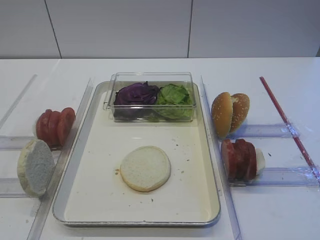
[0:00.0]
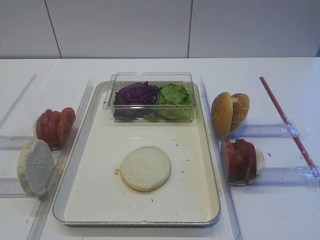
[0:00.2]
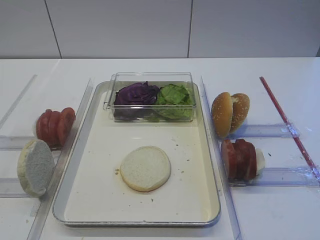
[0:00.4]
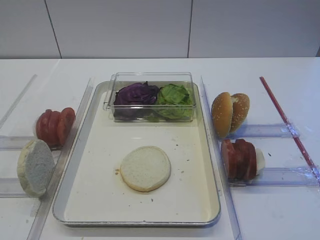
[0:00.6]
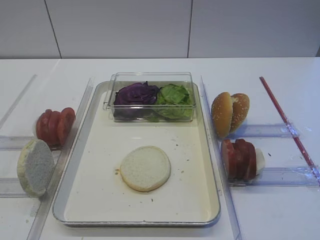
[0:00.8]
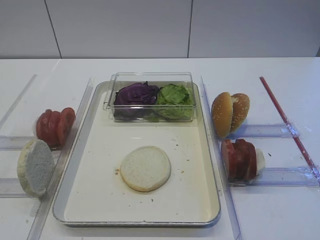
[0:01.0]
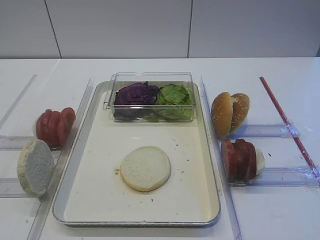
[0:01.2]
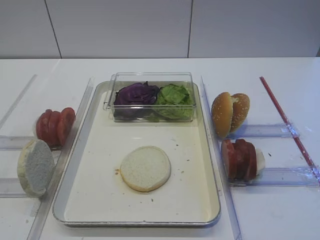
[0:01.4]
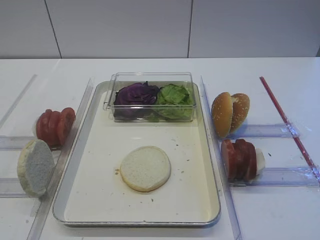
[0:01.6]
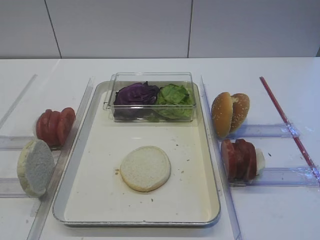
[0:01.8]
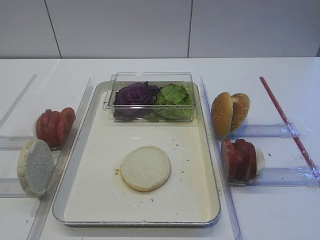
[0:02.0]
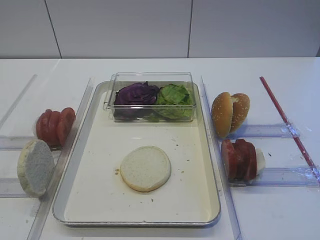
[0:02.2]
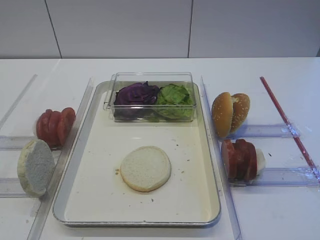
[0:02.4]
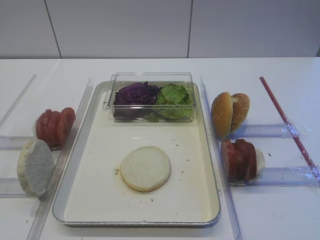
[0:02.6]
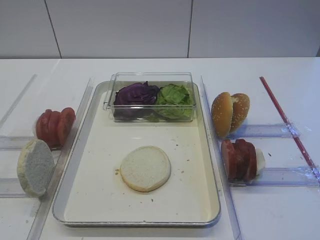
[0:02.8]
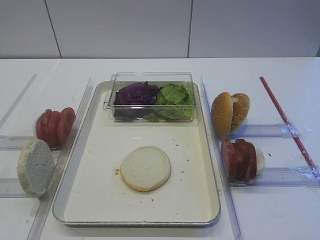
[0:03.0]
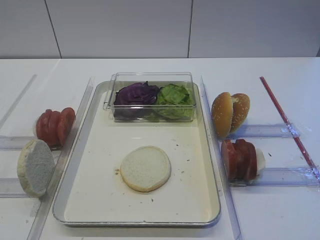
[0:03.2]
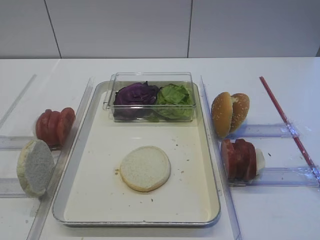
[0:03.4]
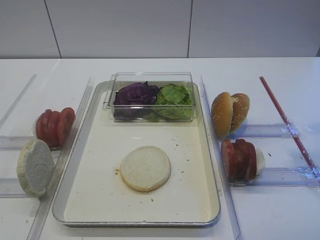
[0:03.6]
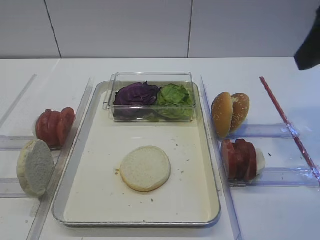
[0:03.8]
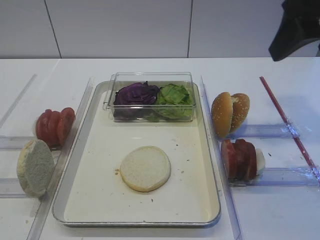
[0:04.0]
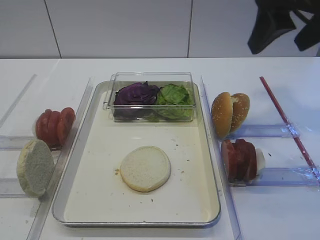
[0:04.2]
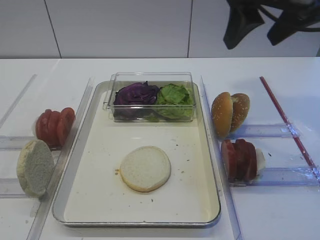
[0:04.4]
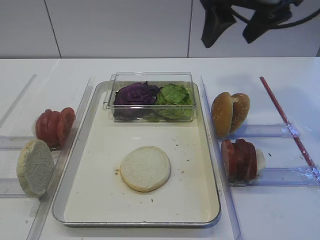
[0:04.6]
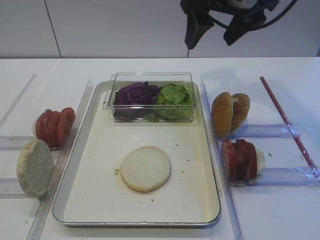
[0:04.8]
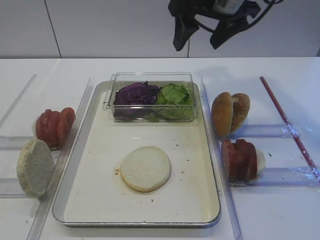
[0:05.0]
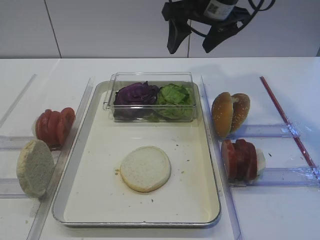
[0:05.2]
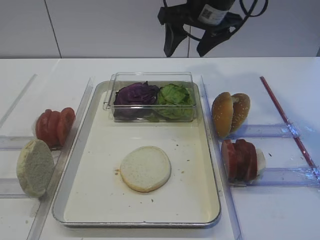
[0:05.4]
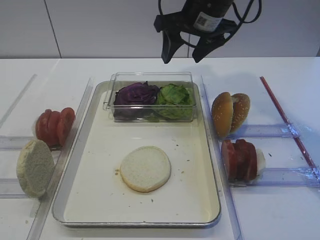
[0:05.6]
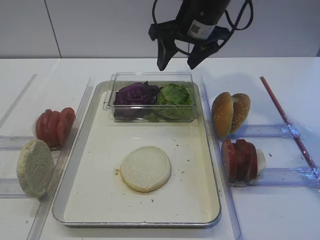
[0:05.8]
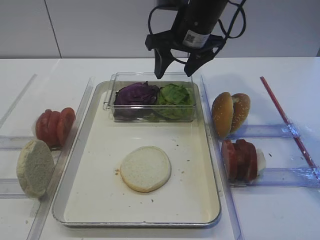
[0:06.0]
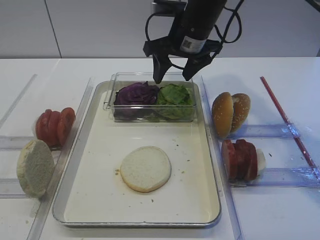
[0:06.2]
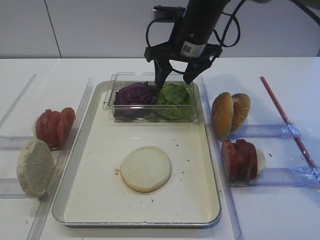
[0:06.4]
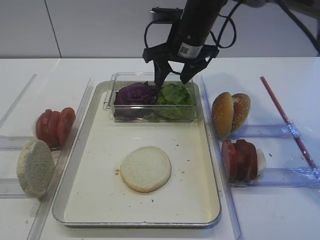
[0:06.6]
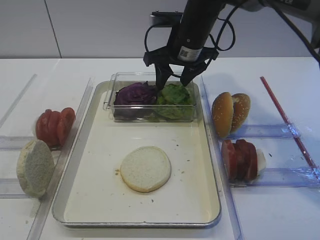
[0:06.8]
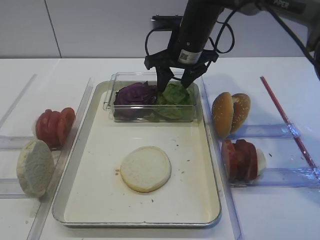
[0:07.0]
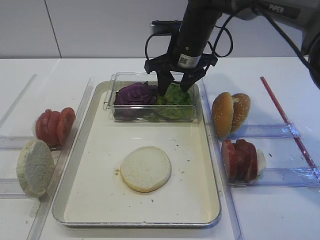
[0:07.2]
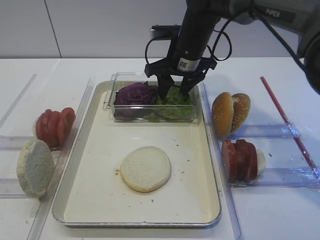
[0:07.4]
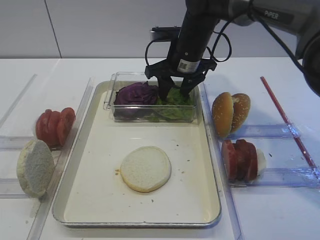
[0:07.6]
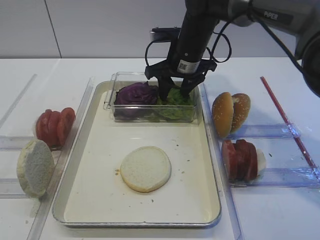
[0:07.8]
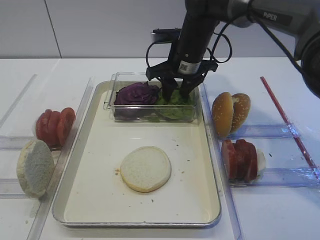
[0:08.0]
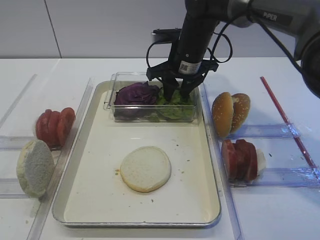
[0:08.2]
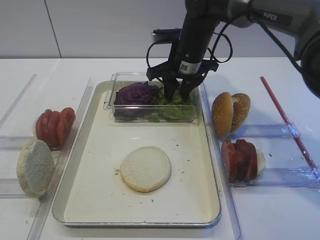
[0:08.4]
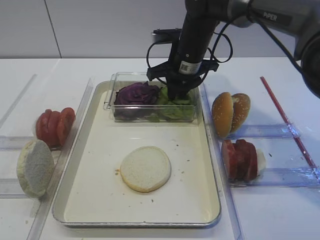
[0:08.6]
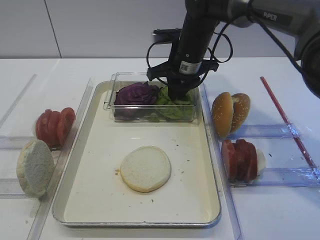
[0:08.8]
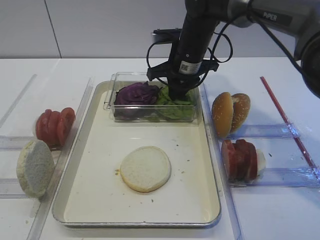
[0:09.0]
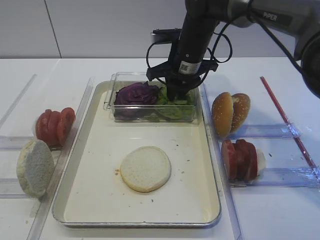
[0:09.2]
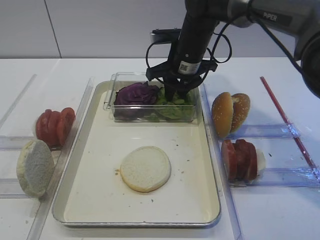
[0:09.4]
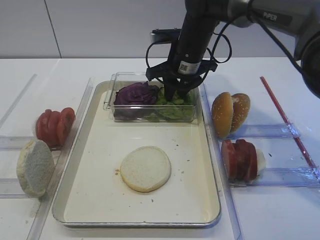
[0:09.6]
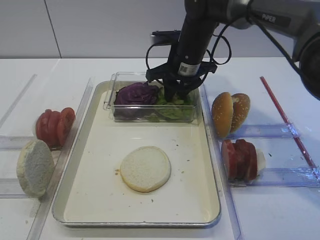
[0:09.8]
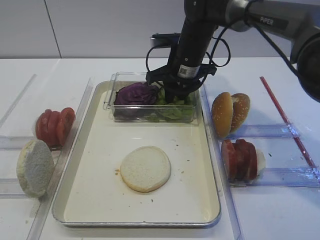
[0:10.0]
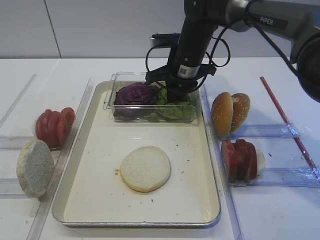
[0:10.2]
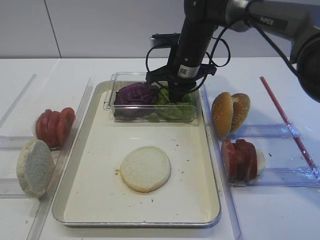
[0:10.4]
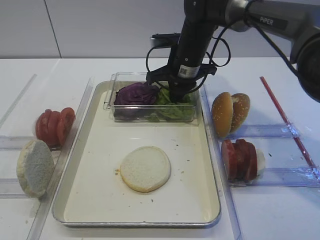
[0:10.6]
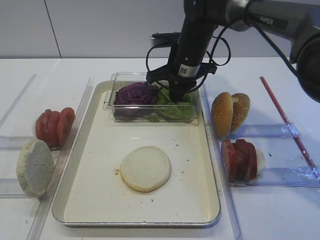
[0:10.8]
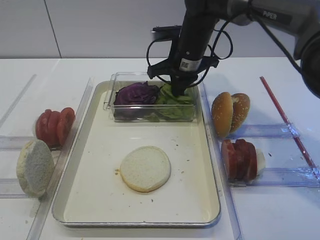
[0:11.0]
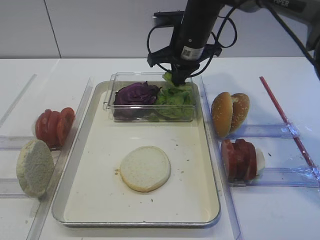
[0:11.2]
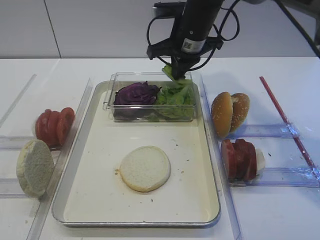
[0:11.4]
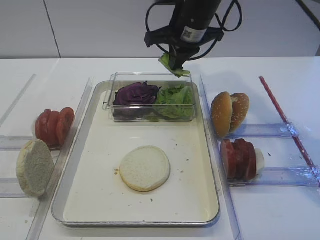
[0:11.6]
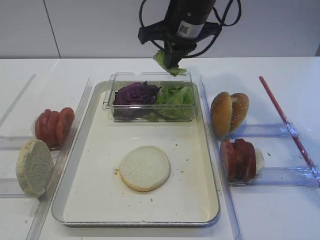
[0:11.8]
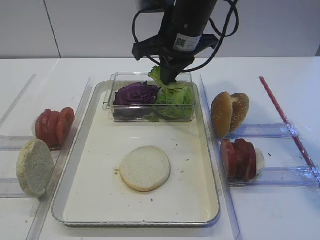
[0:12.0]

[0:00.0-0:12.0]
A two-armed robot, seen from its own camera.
Step, 0:00.0 to 0:11.4: Pick up the lettuce leaf with the right gripper.
0:03.0 to 0:04.4: The right gripper goes about 25 cm forward and to the left.
0:04.4 to 0:06.0: The right gripper goes approximately 20 cm forward, to the left and downward. Meanwhile the left gripper opens its fingers.
0:06.0 to 0:07.6: The right gripper moves downward, roughly 5 cm.
0:07.6 to 0:09.0: The right gripper closes its fingers.
0:09.0 to 0:10.4: Neither gripper changes place.
0:10.4 to 0:12.0: The right gripper moves upward and backward, some 10 cm.

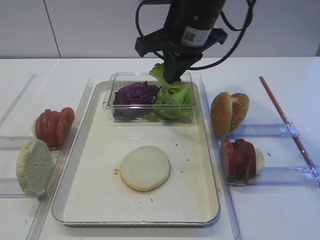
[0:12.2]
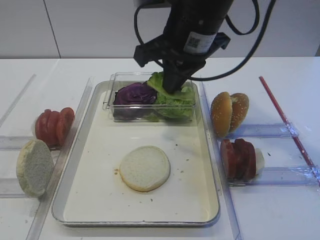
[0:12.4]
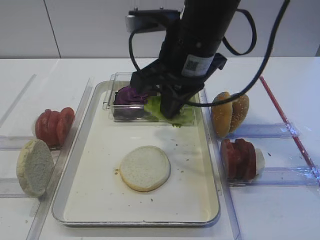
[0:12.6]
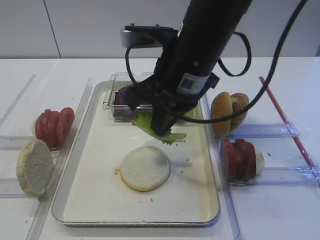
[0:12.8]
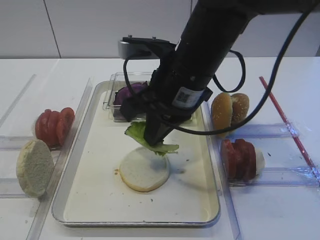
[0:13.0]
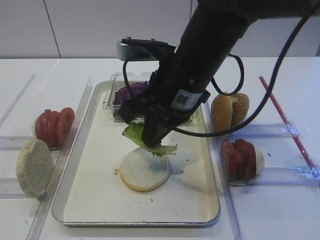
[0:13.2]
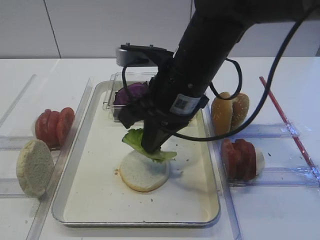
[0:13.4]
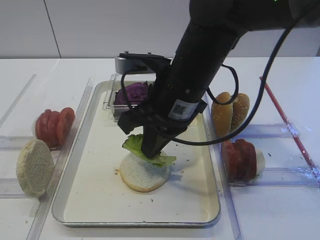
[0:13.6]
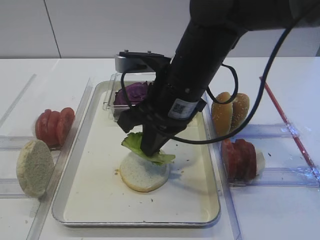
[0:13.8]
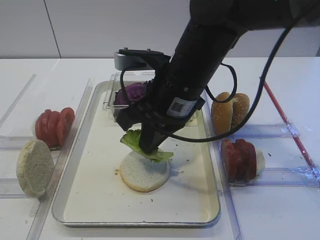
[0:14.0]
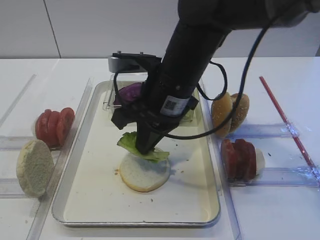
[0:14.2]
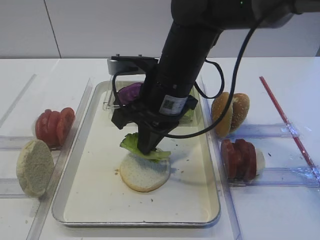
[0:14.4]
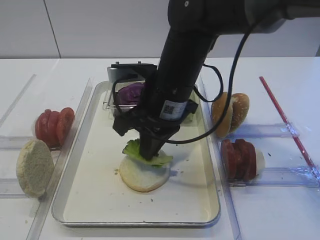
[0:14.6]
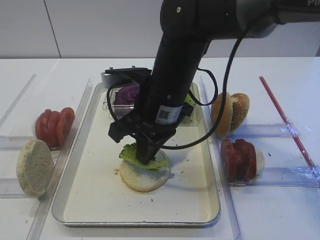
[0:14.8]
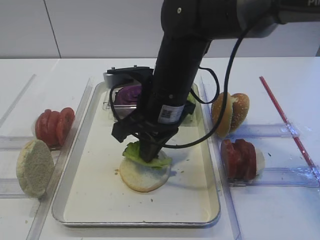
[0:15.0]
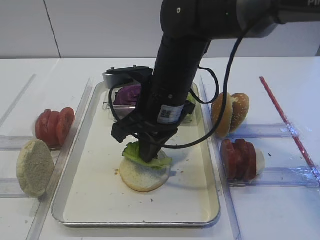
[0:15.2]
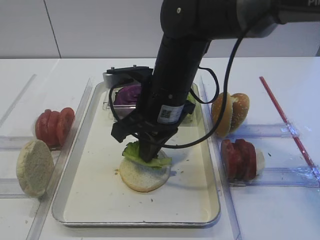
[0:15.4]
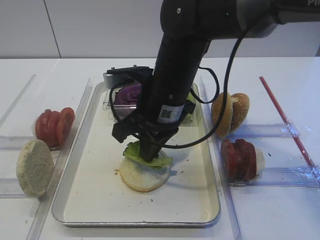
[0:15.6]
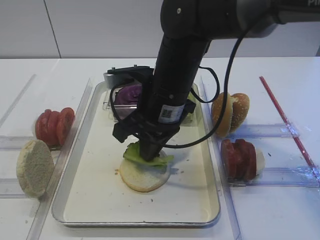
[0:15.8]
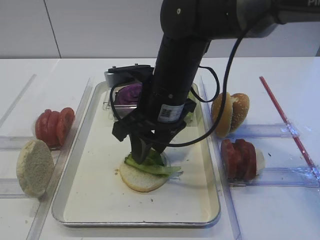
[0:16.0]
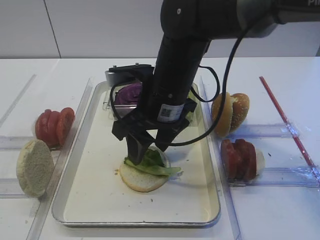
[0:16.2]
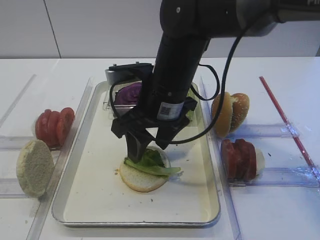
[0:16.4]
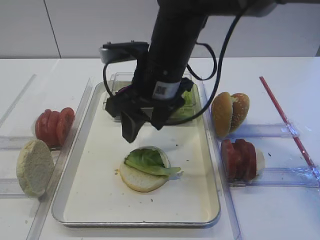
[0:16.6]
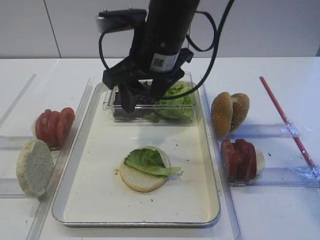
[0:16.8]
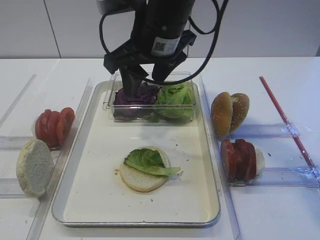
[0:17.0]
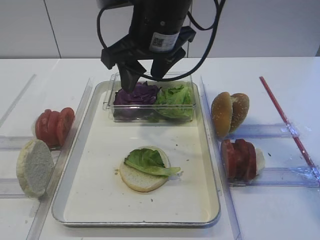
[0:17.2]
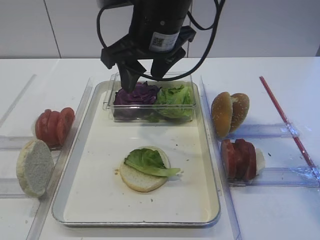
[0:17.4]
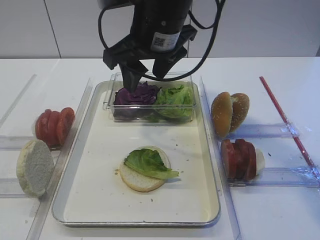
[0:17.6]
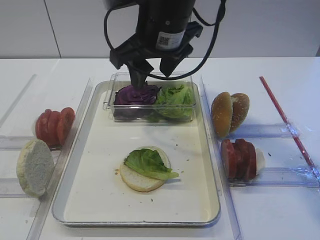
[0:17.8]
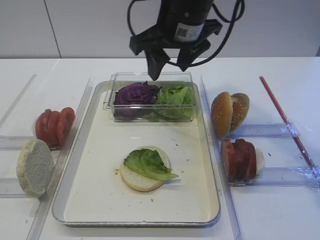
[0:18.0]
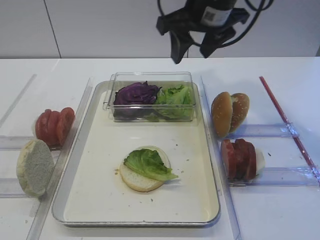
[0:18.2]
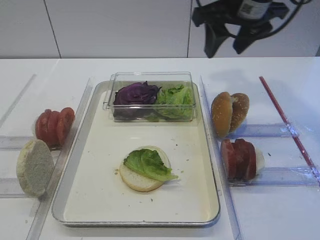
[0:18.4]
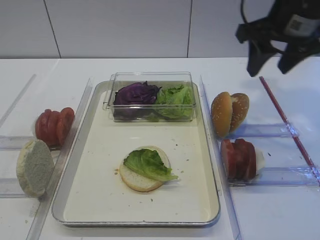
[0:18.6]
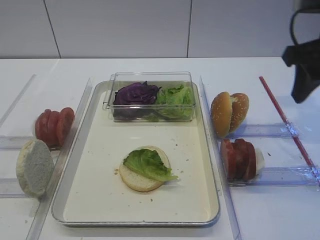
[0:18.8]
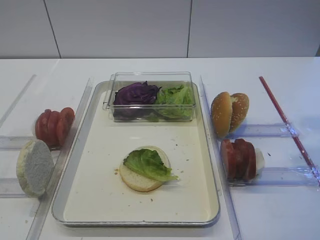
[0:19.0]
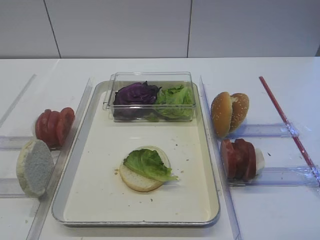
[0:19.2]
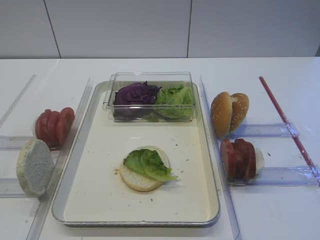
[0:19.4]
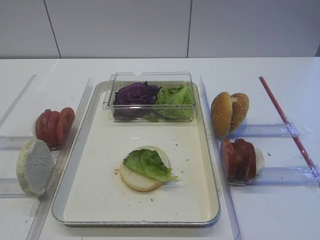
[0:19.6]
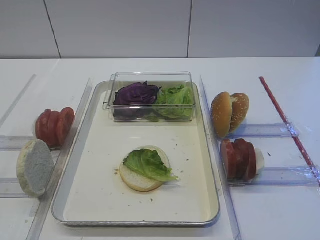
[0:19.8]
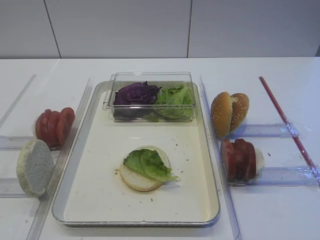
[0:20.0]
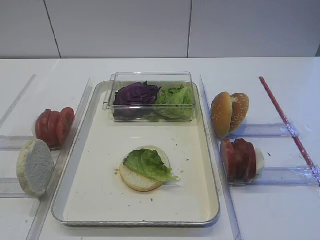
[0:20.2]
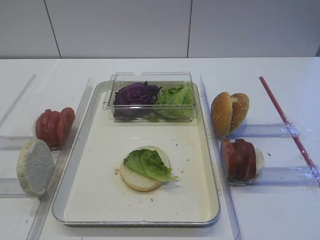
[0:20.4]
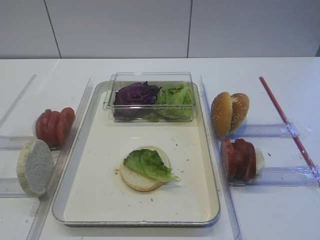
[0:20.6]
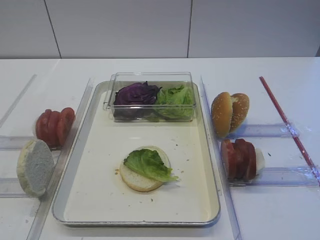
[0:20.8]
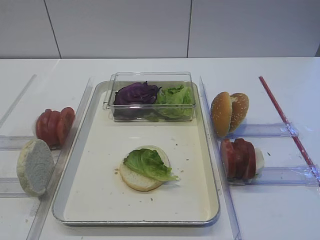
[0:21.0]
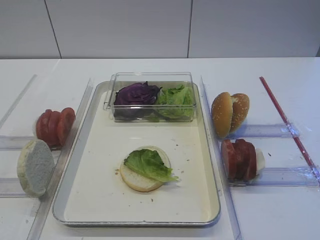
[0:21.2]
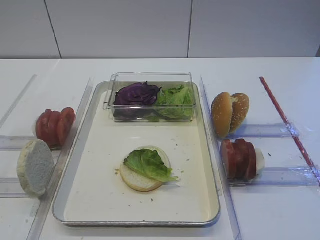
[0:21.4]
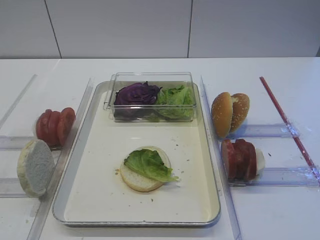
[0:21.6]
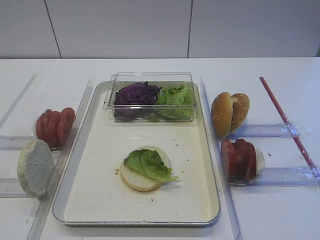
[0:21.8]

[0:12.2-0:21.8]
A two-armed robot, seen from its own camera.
Step, 0:12.2 to 0:16.6: Place the lettuce leaf on the bread slice with the right gripper.
0:12.2 to 0:13.8: The right gripper moves backward and downward, approximately 10 cm.
0:13.8 to 0:15.4: There are only small adjustments of the grippers.
0:15.4 to 0:17.0: The right gripper is displaced upward by approximately 10 cm, and opens.
0:17.0 to 0:18.6: The right gripper moves to the right, roughly 20 cm.
0:18.6 to 0:20.2: The right gripper goes approximately 30 cm backward.

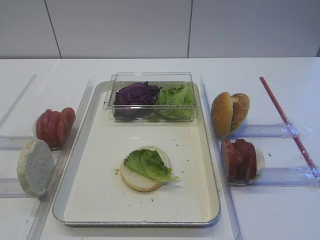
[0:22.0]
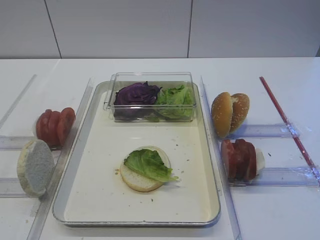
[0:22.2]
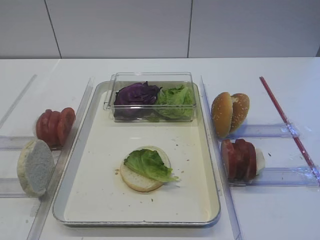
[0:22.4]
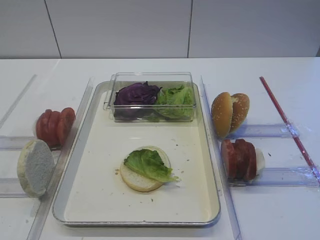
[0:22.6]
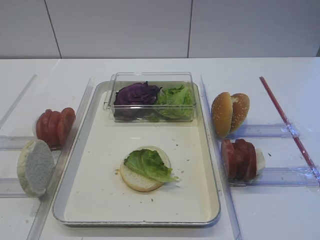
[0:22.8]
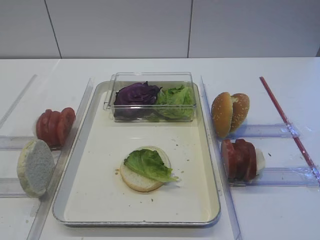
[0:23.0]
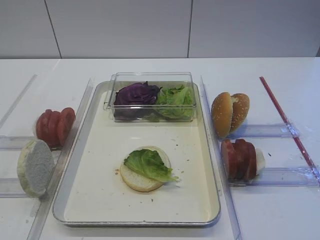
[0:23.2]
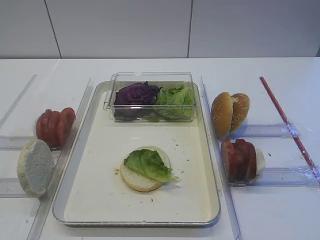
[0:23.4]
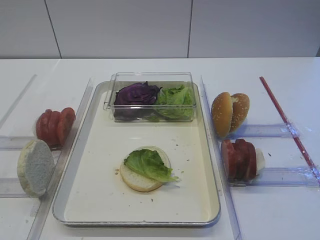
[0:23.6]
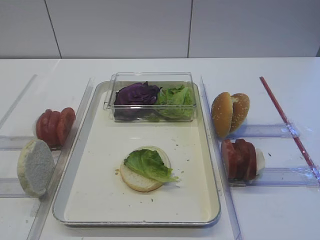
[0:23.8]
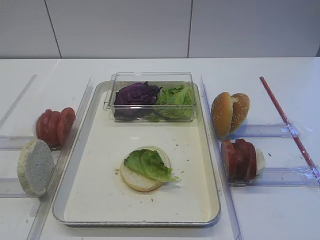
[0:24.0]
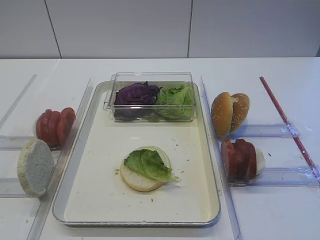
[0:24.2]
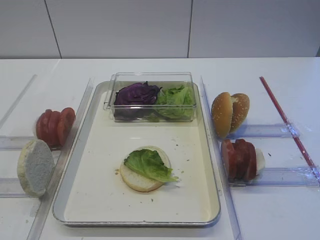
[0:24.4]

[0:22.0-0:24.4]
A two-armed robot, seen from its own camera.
0:22.0 to 0:24.4: Neither gripper changes place.
